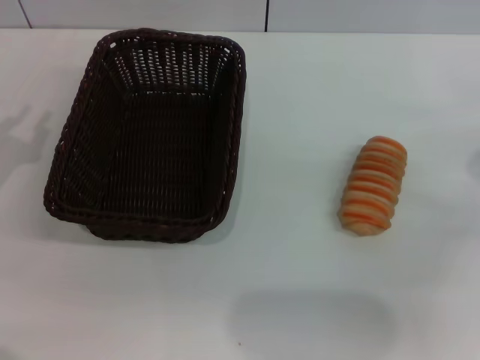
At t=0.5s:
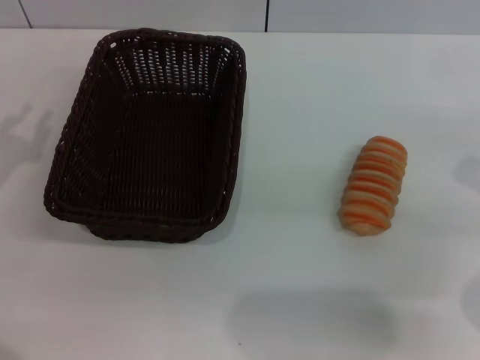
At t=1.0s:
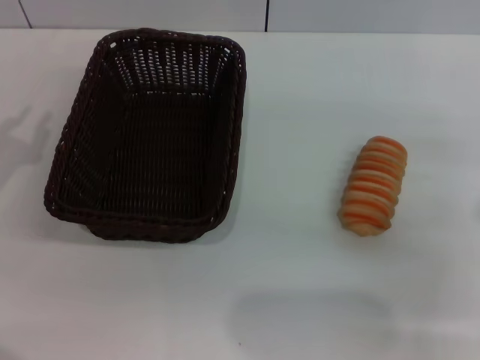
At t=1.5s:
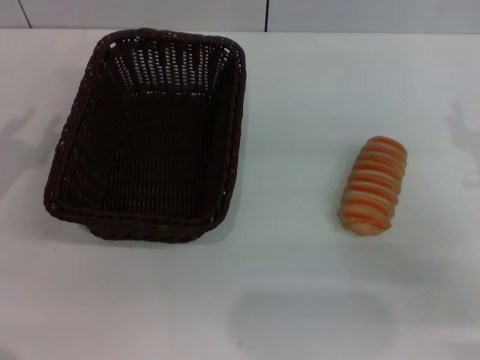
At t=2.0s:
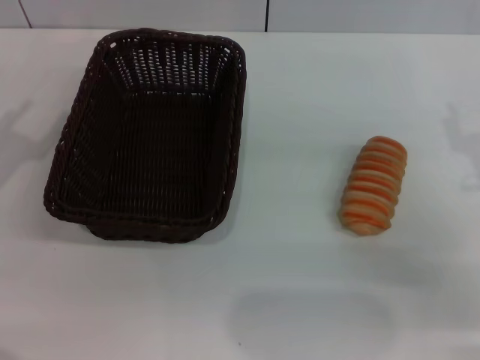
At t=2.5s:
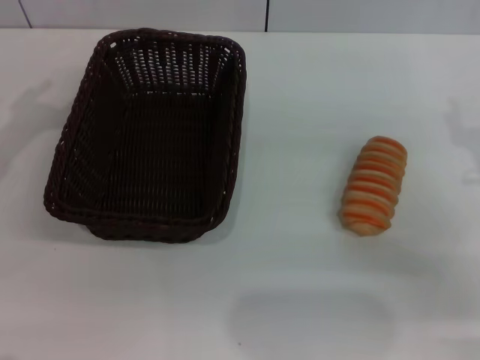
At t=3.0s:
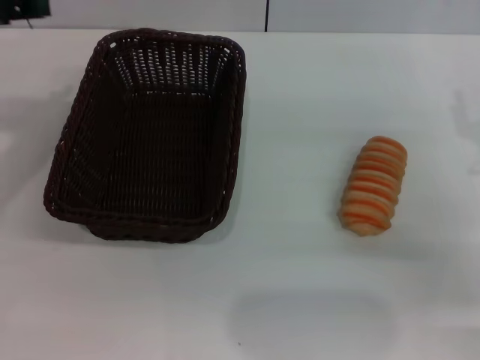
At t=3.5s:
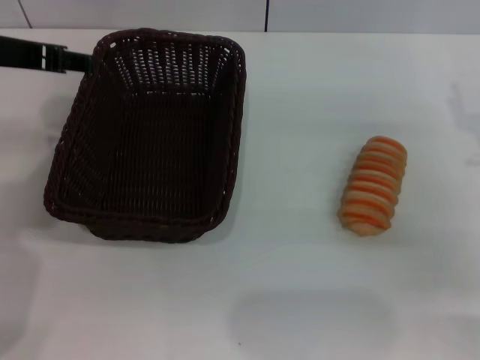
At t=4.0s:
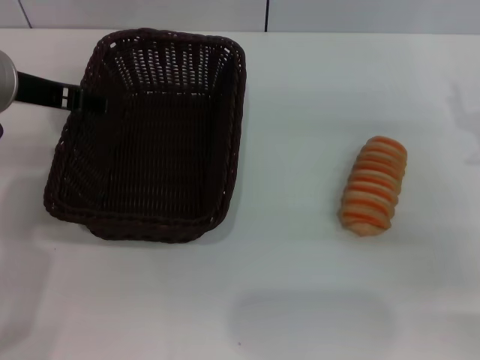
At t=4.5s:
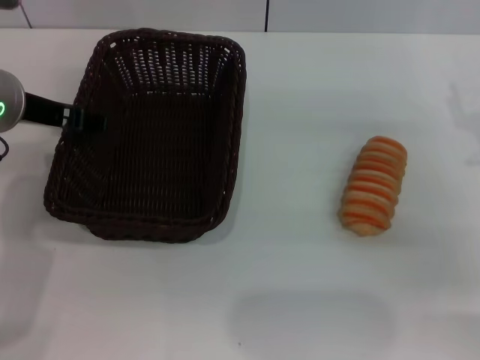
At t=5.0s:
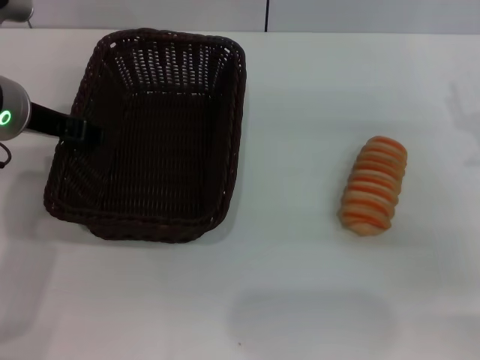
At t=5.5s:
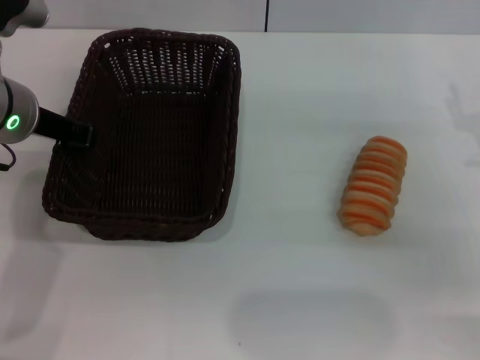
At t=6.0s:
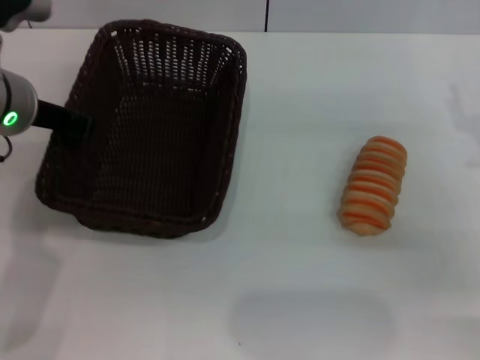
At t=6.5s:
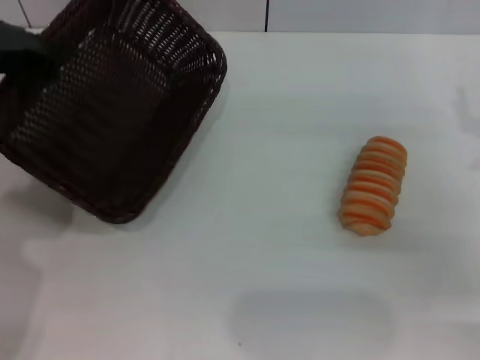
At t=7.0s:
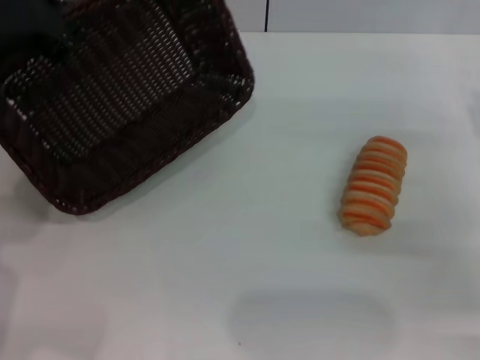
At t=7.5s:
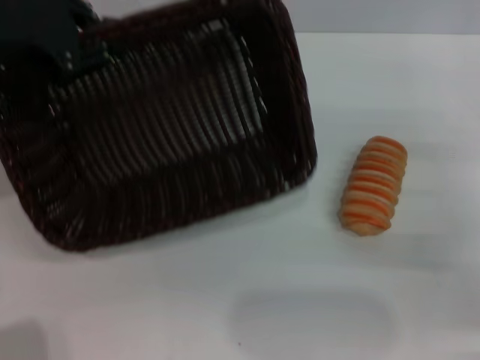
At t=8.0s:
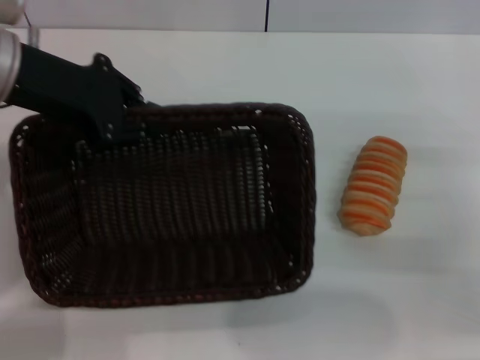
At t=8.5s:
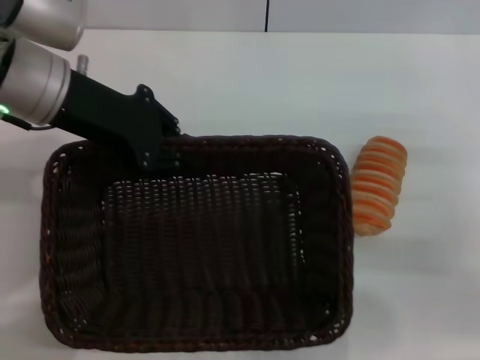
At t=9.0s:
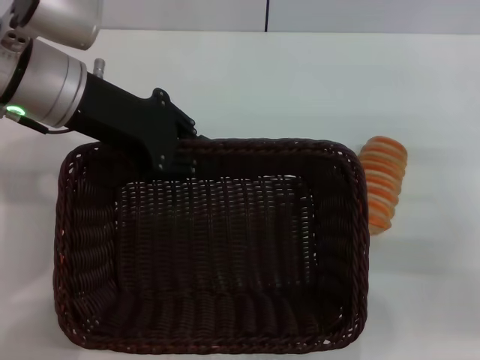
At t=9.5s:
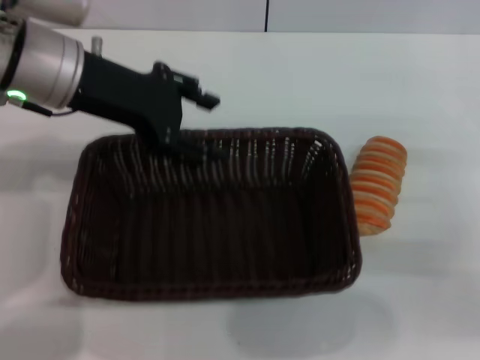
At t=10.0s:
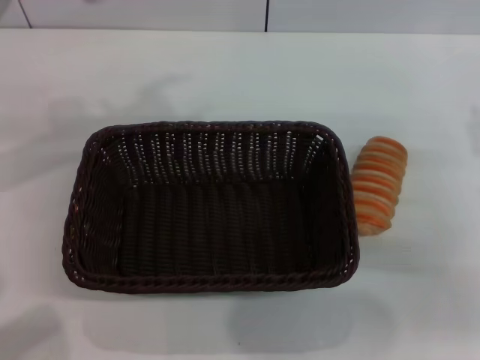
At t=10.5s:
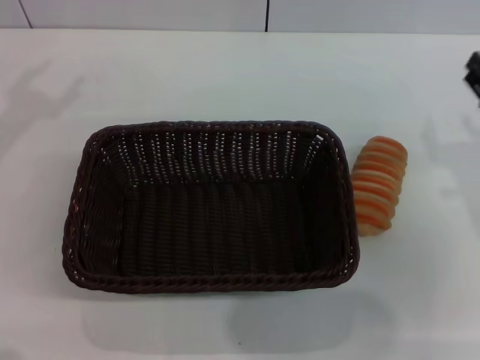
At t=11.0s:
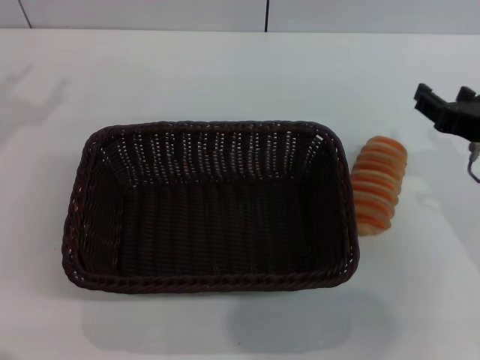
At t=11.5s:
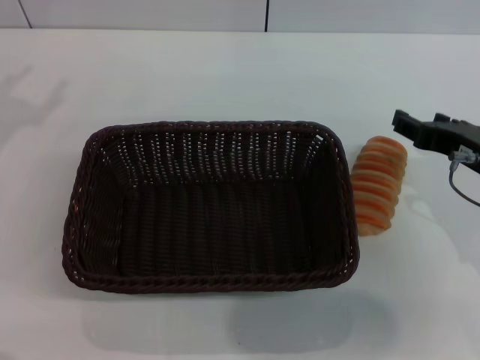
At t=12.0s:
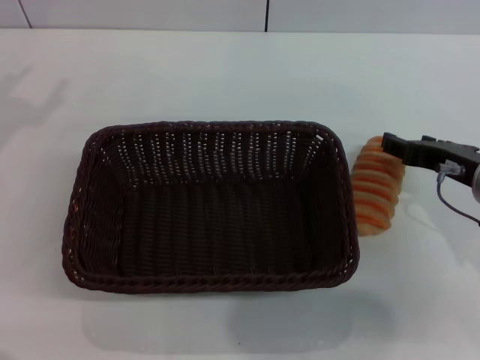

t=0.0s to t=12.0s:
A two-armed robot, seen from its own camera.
Step, t=0.0s to t=6.0s: Pick up the dark basket with the left gripper.
Step, t=6.5s to t=9.5s: Place the dark basket in the center of view with the left gripper.
t=0.0s to t=2.0s: The right gripper moves approximately 5 cm.
t=2.0s to t=4.0s: The left gripper heads to the right, upward and forward, covering approximately 20 cm.
t=4.0s to t=6.0s: The left gripper closes.
t=8.0s to t=10.0s: The left gripper opens up.
t=10.0s to t=12.0s: The left gripper moves to the left and backward, about 15 cm. The right gripper goes roughly 5 cm to the left.

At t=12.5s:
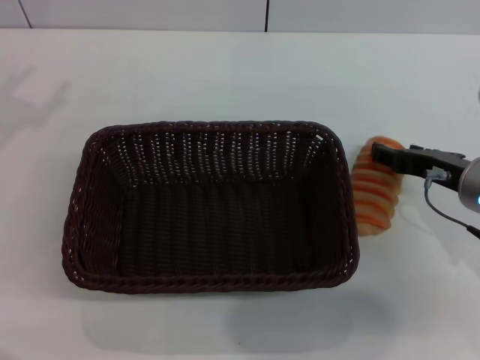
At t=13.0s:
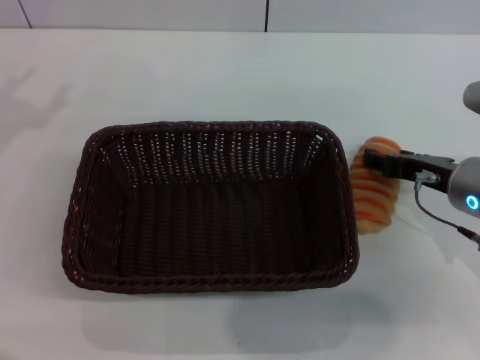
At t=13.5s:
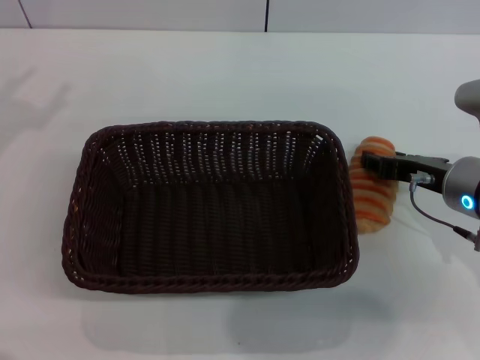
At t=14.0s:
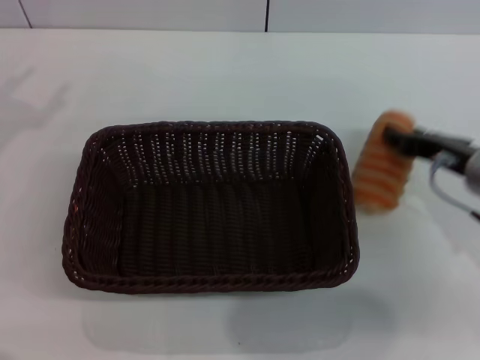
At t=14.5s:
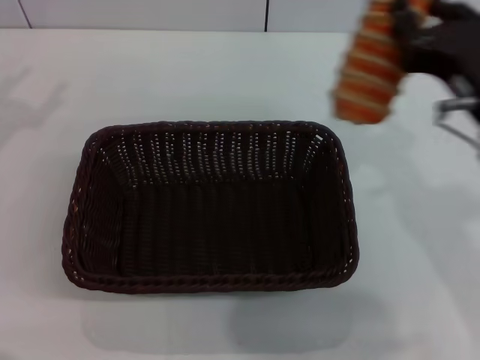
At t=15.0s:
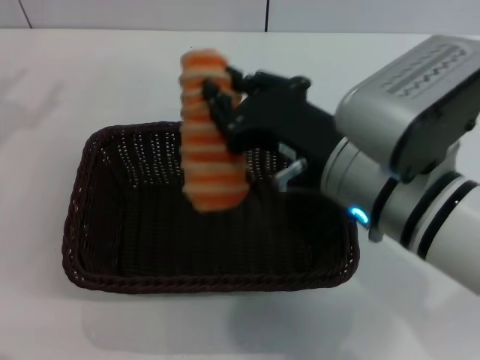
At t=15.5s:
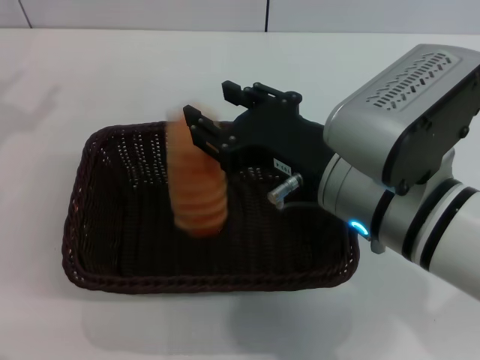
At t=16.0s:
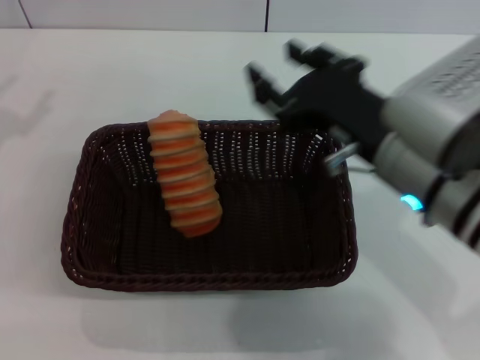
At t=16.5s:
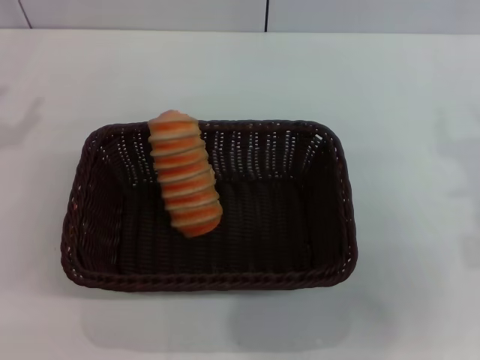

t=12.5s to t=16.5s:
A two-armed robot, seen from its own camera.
Step, t=14.5s to t=15.5s: Place the long bread into the dark basket with the right gripper.
t=12.5s to t=14.5s: The right gripper heads upward, covering roughly 10 cm, and closes its fingers.
t=14.5s to t=16.5s: The right gripper is displaced to the right by roughly 5 cm, and opens up. The left gripper travels downward by approximately 5 cm.
